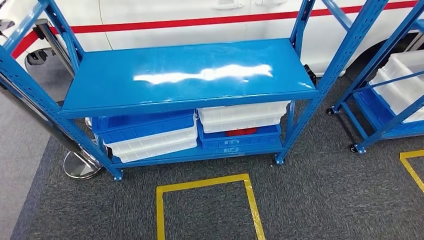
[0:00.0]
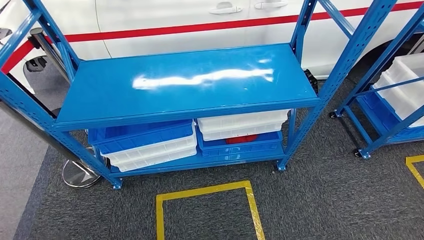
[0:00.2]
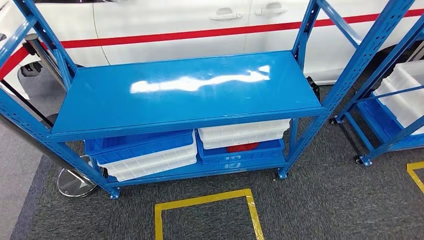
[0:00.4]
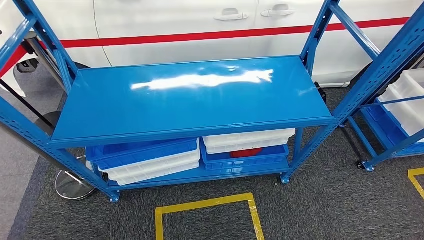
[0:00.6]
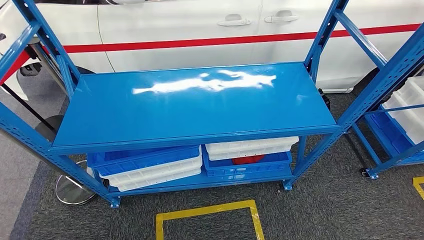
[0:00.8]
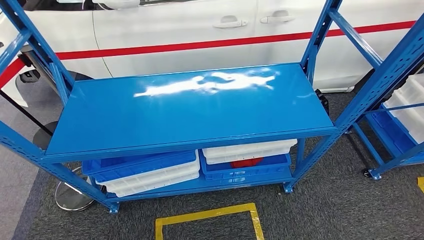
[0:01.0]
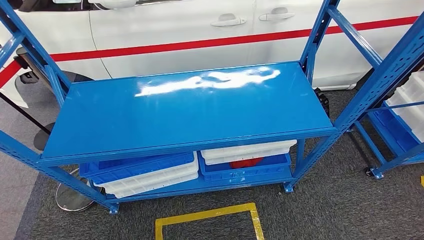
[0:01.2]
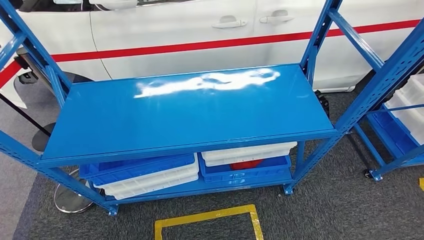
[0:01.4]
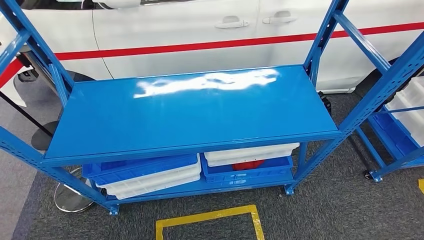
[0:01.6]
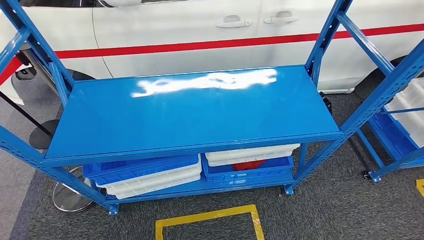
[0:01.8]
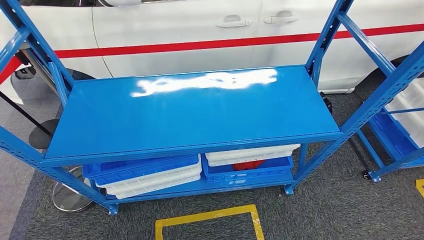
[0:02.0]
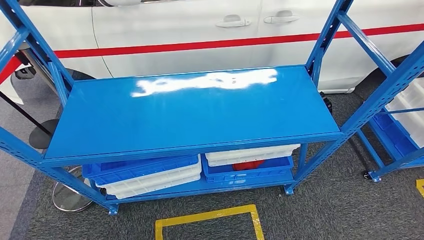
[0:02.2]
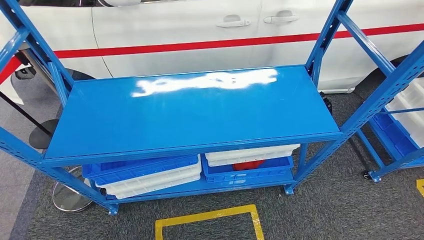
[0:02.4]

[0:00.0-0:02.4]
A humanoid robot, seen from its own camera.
Step, 0:00.0 to 0:02.4: Move to the initial position of the shelf.

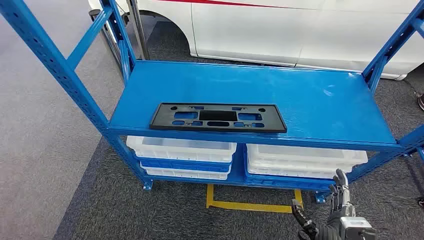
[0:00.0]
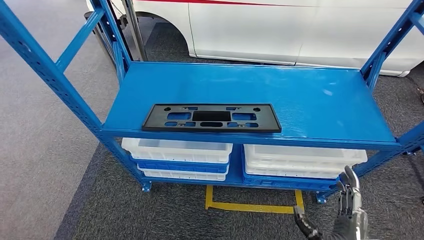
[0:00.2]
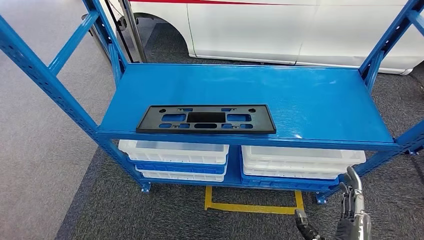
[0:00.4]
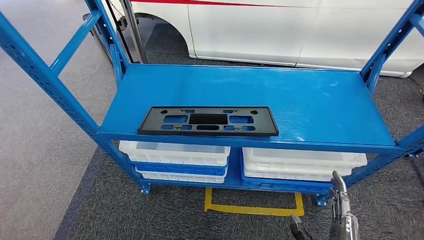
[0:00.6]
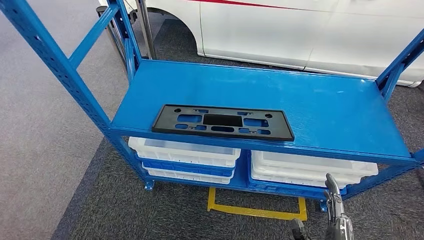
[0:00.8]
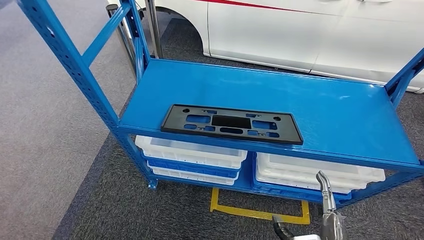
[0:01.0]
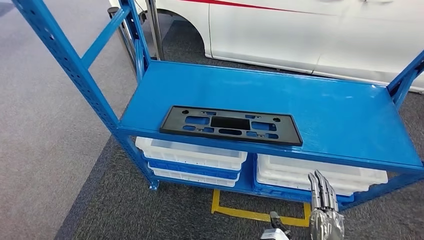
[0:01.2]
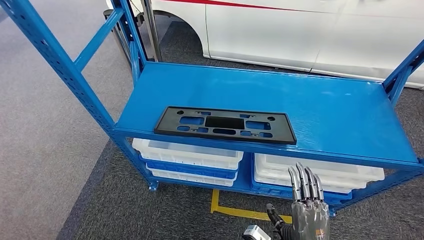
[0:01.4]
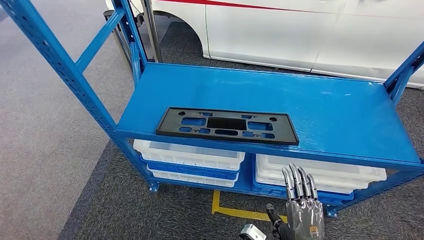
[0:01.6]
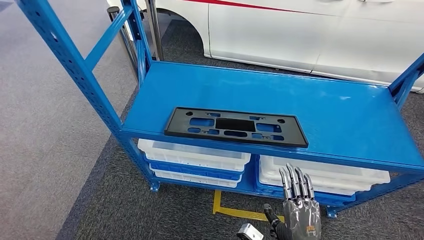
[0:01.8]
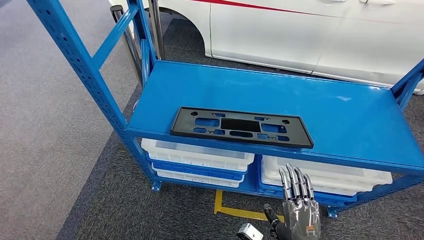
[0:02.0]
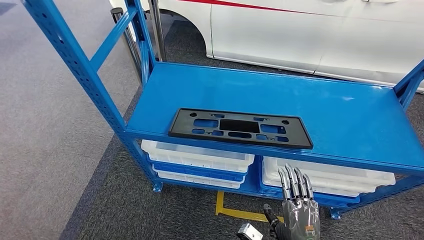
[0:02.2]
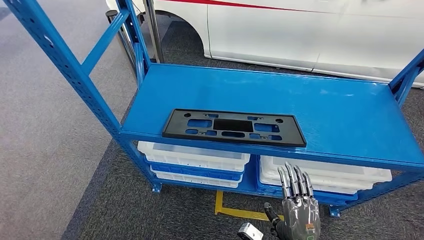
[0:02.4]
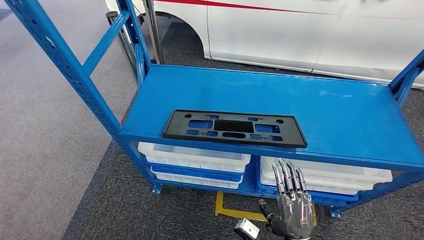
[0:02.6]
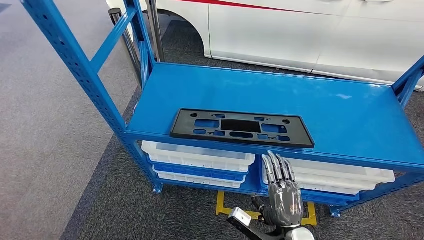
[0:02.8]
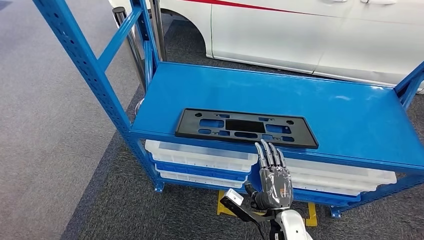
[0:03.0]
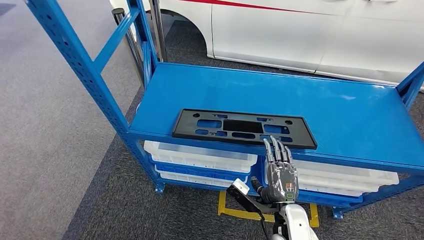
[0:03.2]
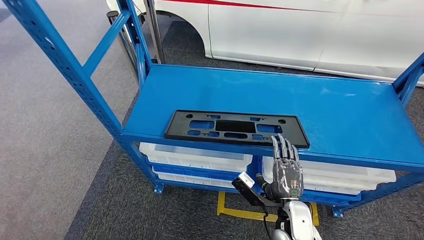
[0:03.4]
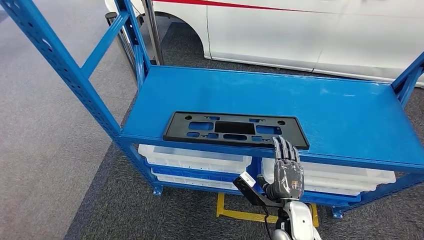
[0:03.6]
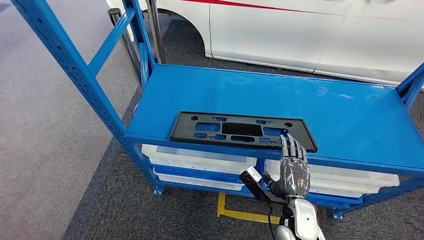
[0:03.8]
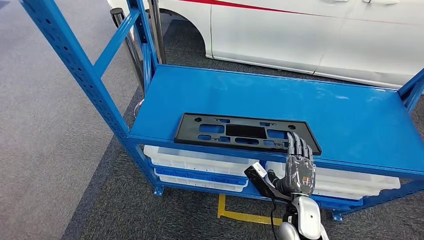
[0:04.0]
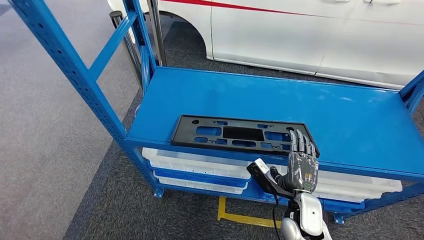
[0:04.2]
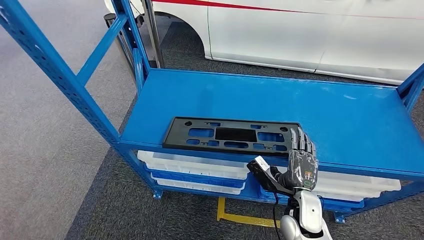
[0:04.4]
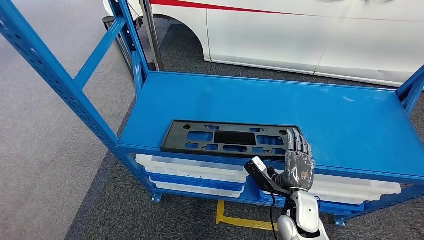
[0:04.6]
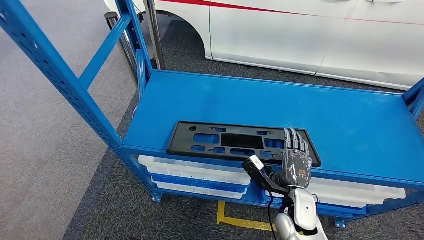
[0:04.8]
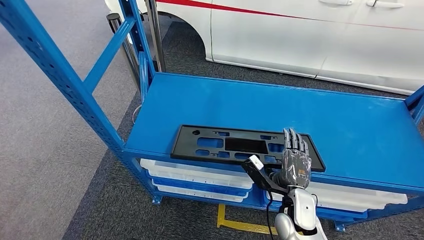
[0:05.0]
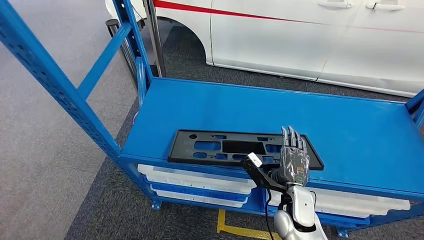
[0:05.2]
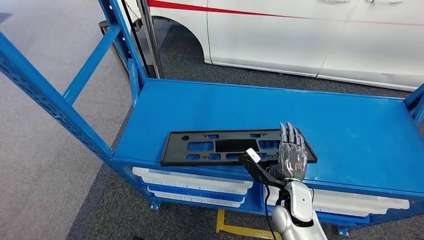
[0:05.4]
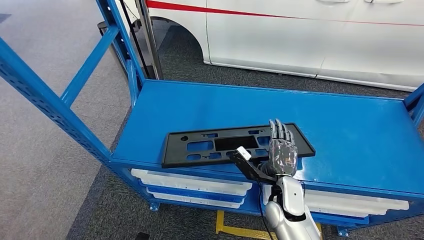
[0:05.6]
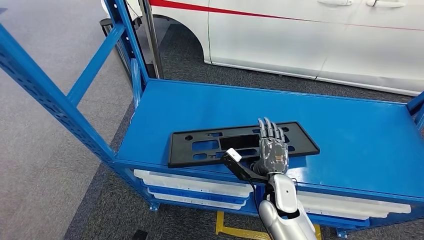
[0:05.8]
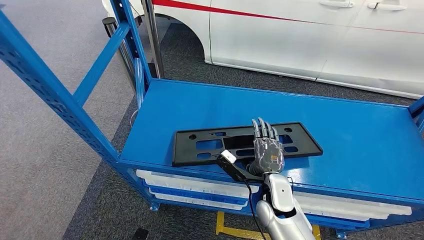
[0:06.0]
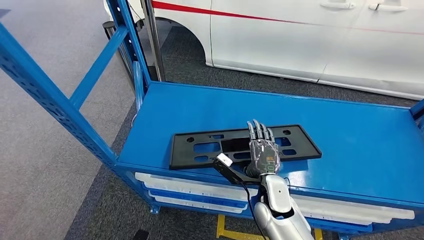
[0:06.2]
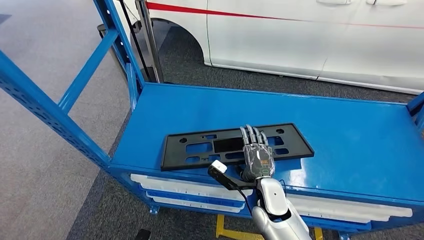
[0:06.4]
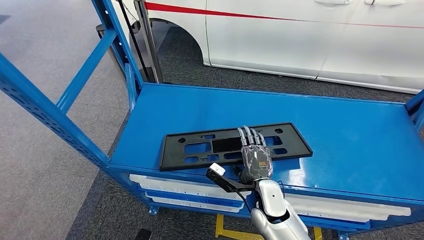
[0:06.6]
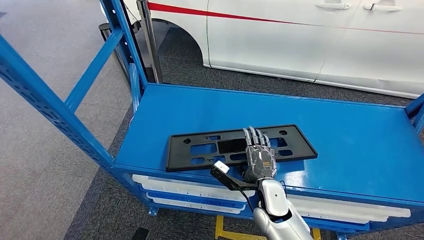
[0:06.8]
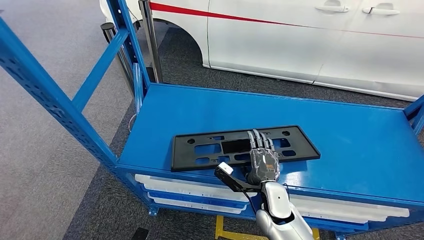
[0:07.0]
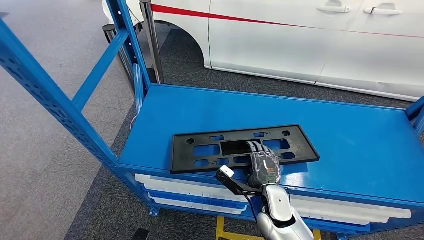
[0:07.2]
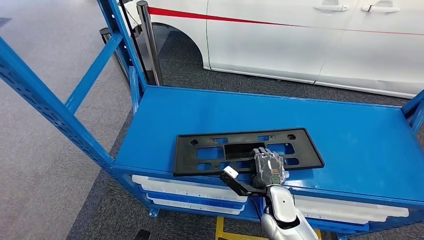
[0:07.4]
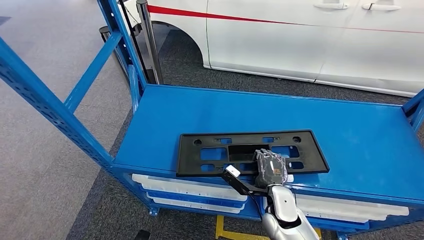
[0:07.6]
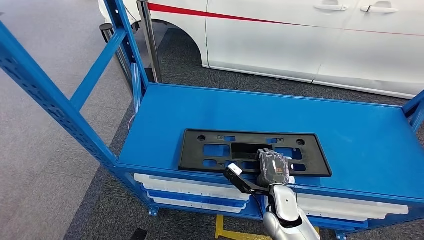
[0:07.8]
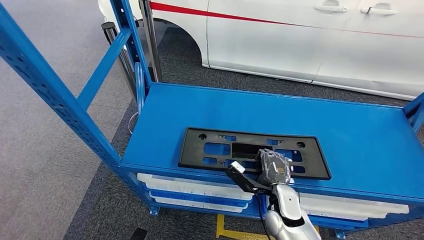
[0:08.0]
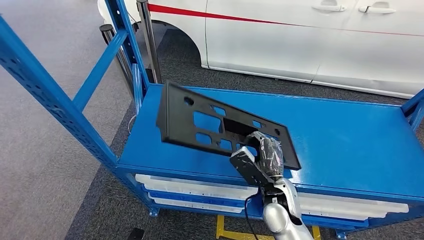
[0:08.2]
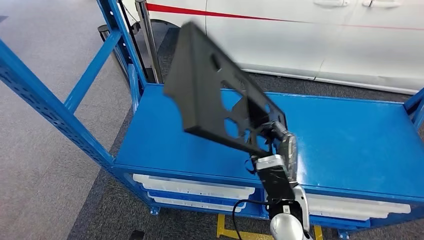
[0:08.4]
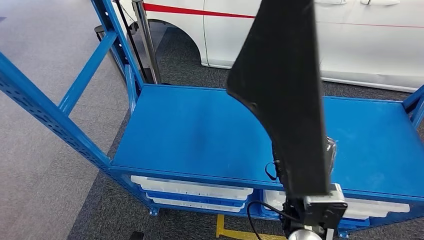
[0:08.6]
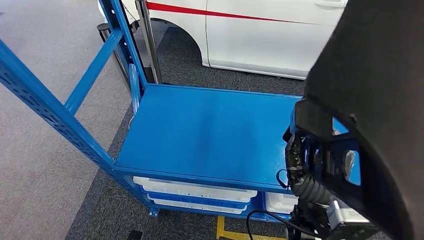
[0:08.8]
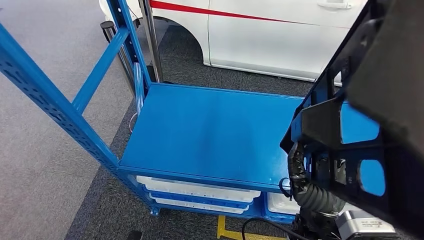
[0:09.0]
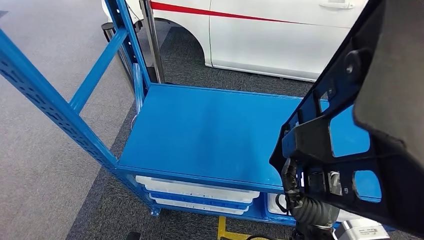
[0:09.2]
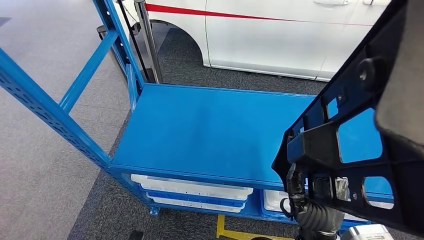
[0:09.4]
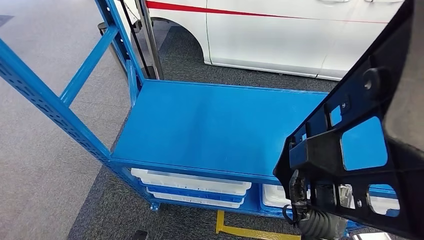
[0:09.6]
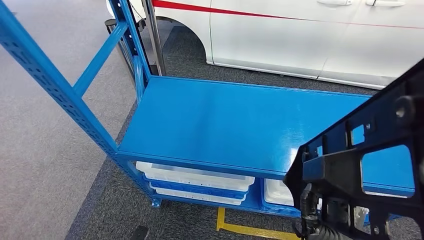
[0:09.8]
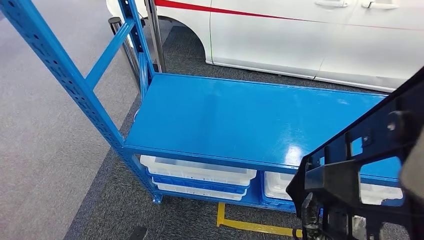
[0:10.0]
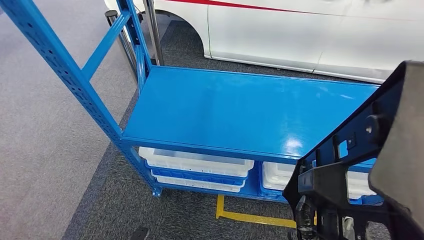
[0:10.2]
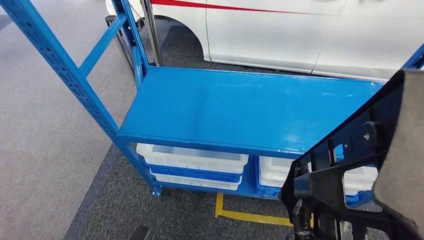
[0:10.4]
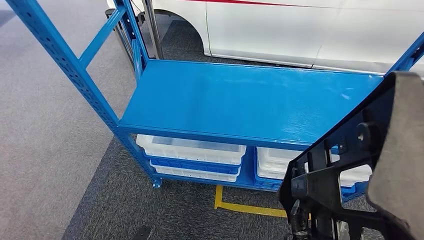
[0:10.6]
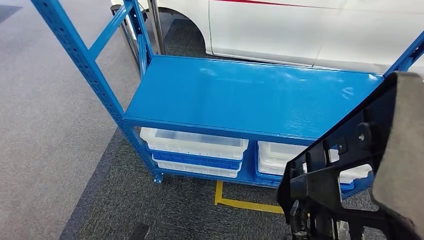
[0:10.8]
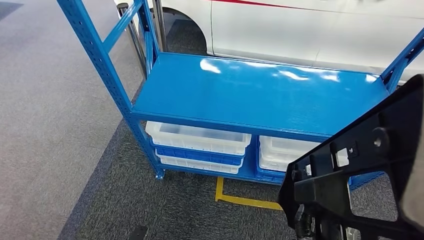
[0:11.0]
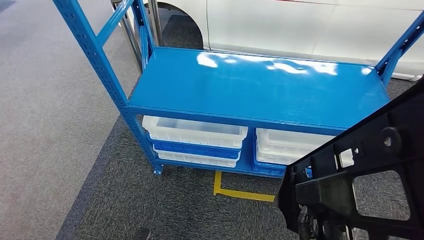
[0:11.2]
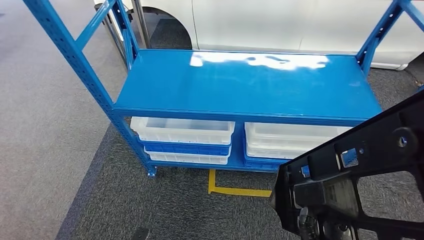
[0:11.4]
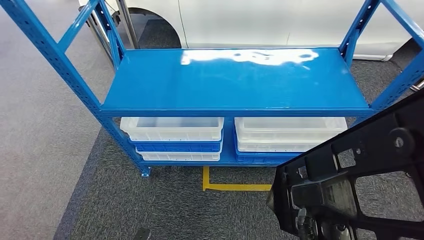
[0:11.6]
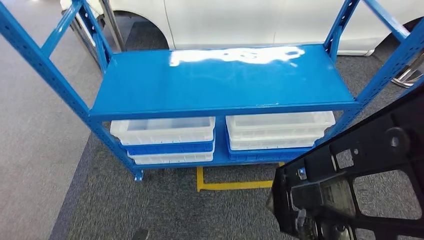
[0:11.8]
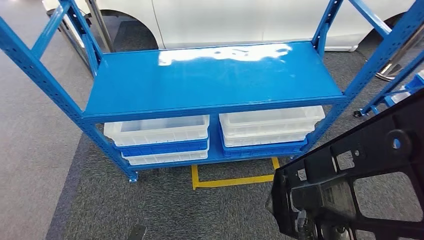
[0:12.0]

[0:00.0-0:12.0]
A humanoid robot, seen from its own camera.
Step, 0:00.0 to 0:08.4: Pick up the large material from the shelf.

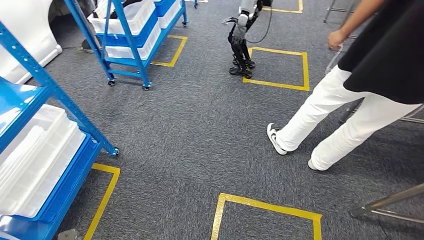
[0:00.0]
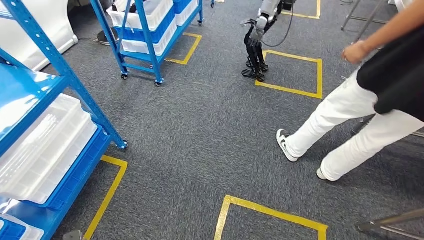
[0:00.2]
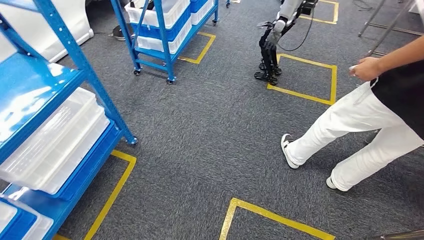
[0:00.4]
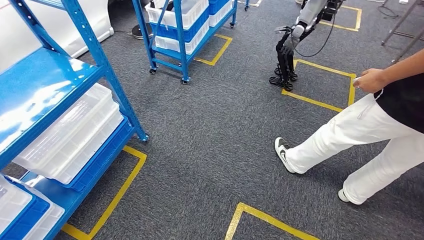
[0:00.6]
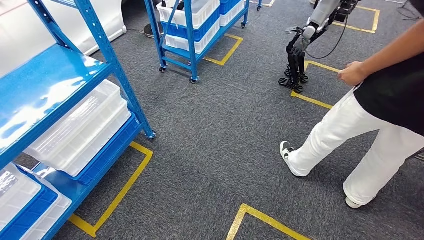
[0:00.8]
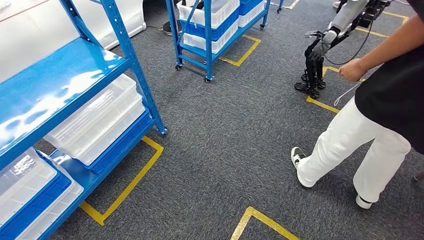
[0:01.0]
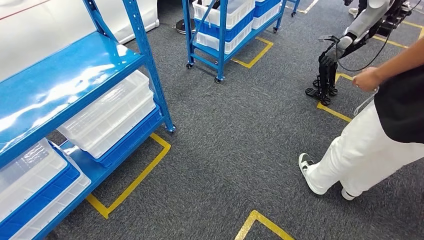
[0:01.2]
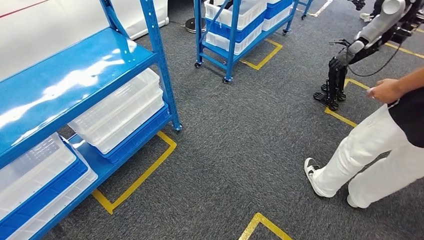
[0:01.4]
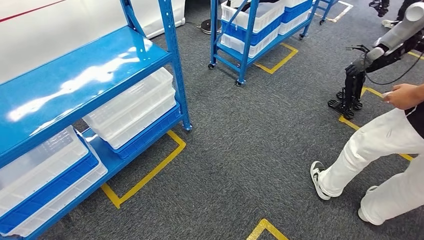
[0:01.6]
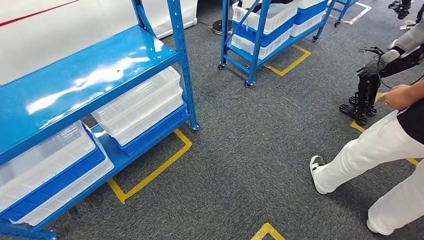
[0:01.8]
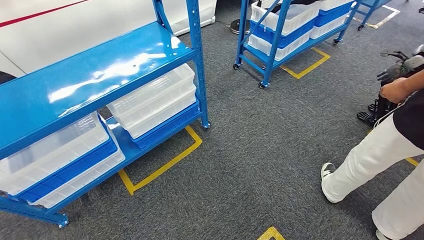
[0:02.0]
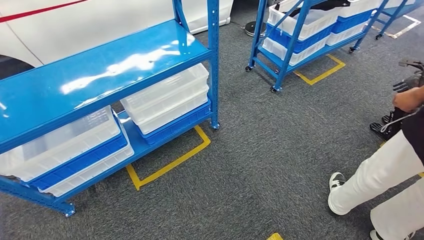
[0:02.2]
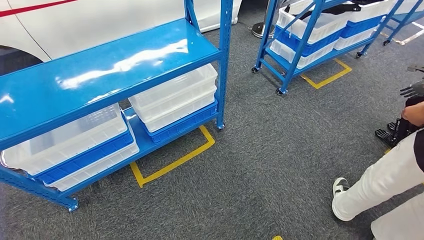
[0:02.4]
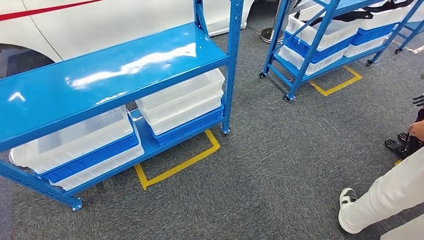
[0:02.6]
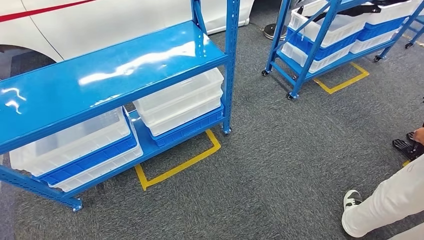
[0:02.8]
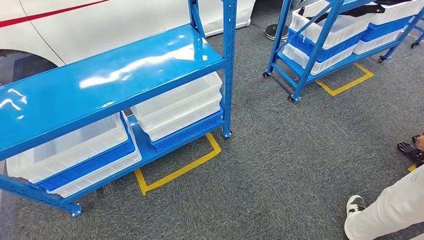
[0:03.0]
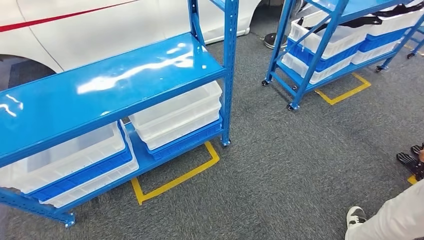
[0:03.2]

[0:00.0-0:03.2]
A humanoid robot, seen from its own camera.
Step, 0:00.0 to 0:03.2: Move to the initial position of the shelf.
